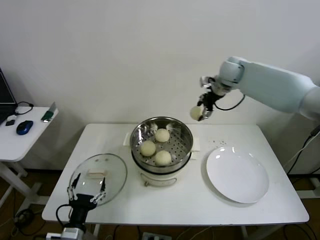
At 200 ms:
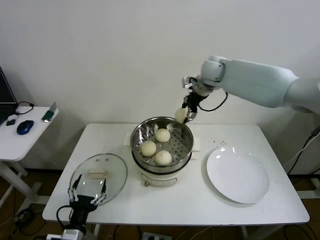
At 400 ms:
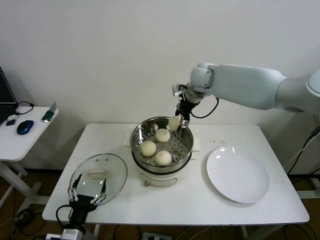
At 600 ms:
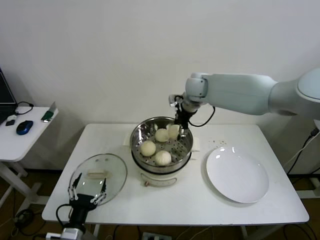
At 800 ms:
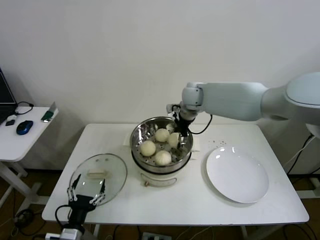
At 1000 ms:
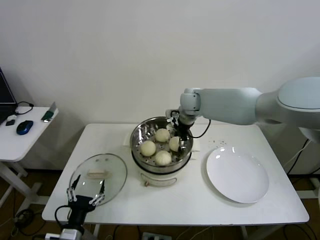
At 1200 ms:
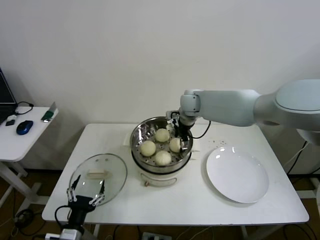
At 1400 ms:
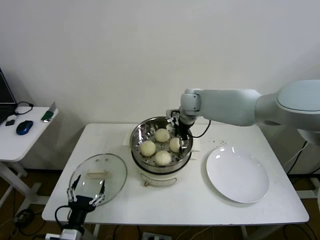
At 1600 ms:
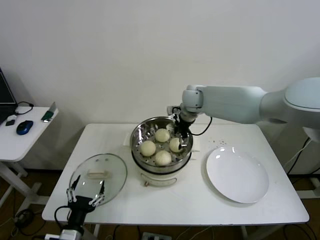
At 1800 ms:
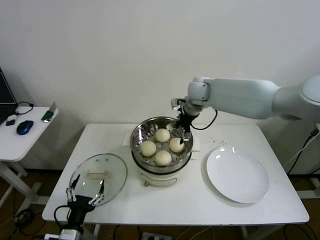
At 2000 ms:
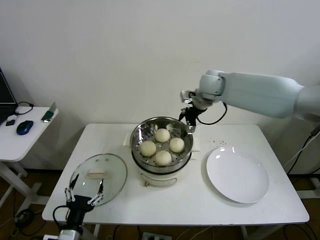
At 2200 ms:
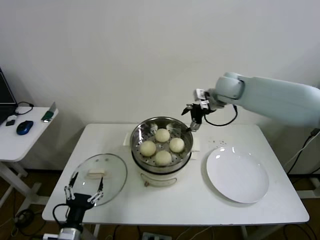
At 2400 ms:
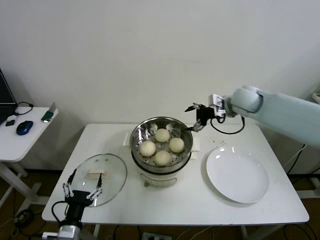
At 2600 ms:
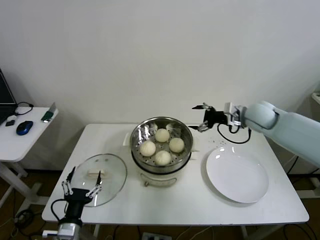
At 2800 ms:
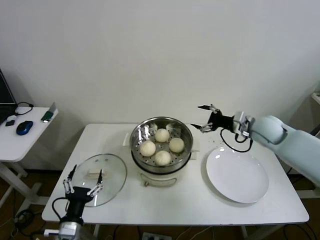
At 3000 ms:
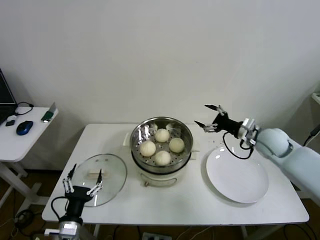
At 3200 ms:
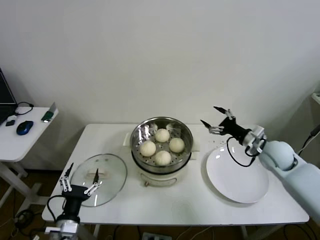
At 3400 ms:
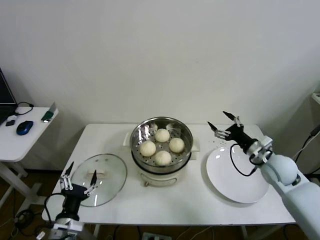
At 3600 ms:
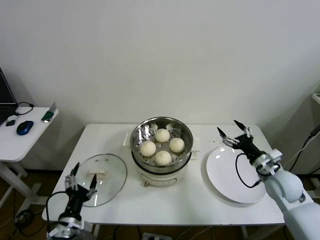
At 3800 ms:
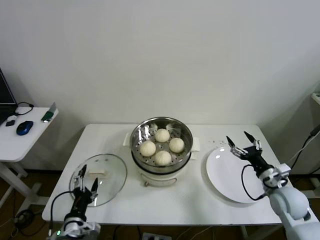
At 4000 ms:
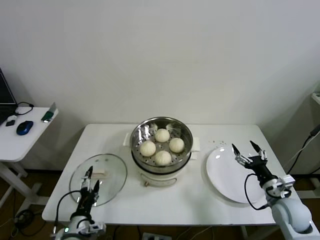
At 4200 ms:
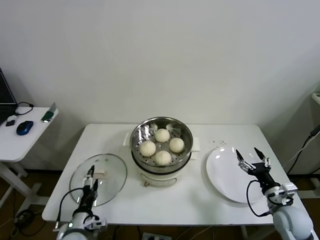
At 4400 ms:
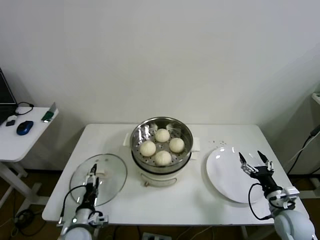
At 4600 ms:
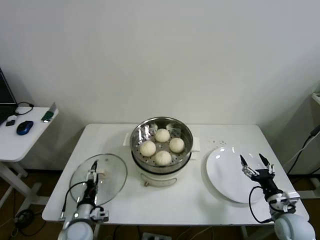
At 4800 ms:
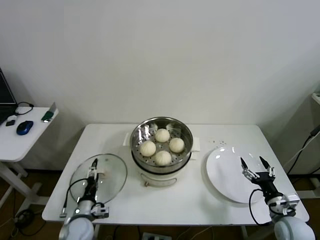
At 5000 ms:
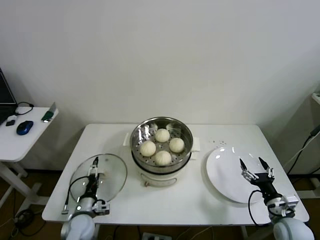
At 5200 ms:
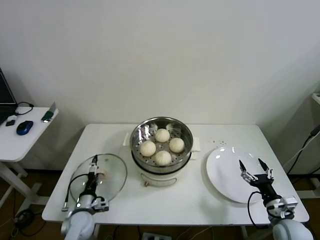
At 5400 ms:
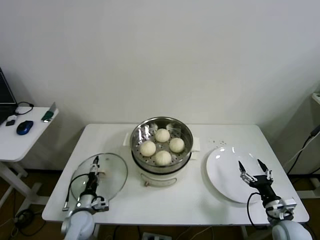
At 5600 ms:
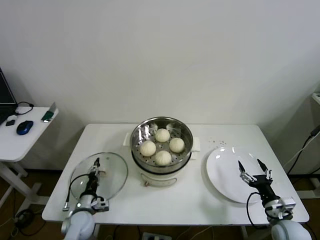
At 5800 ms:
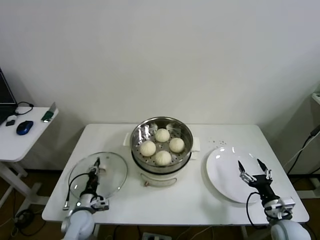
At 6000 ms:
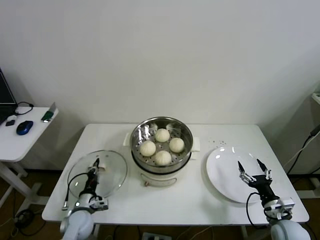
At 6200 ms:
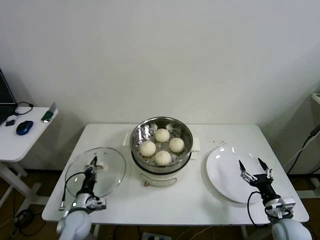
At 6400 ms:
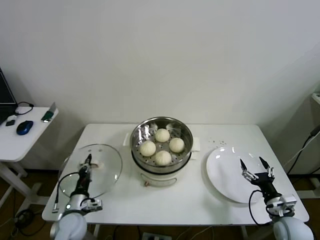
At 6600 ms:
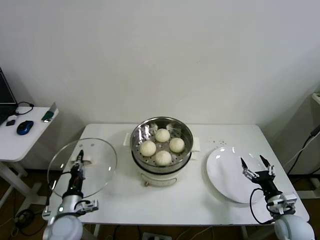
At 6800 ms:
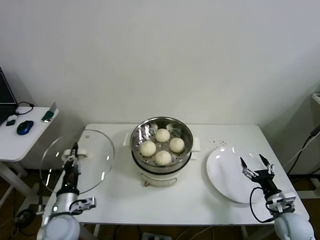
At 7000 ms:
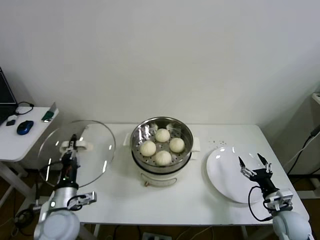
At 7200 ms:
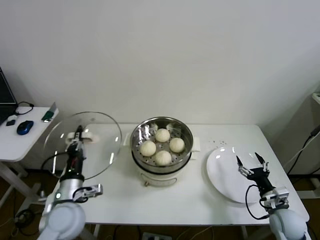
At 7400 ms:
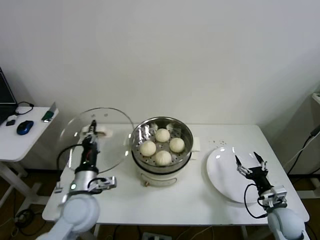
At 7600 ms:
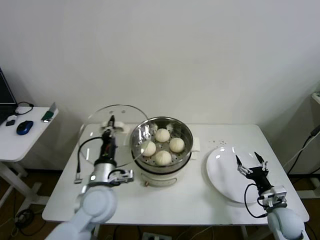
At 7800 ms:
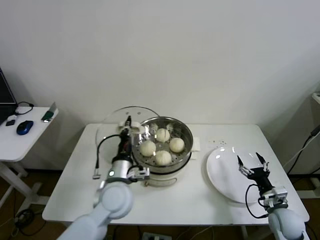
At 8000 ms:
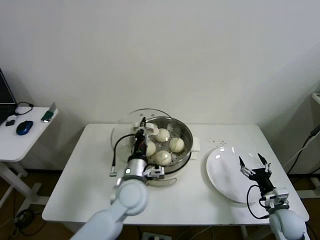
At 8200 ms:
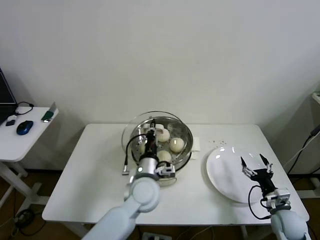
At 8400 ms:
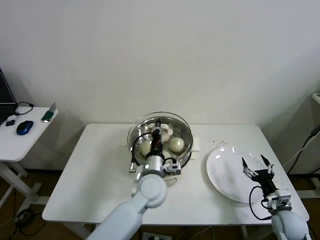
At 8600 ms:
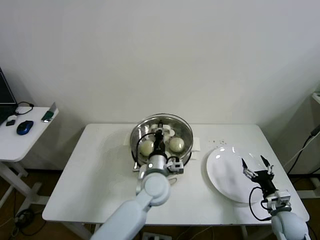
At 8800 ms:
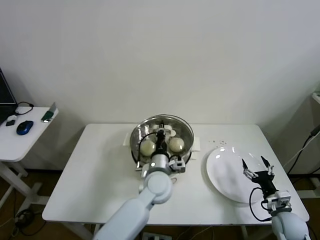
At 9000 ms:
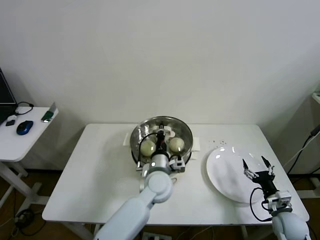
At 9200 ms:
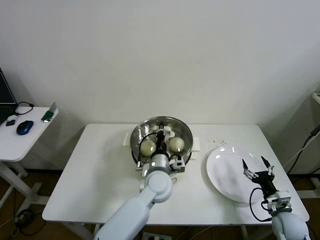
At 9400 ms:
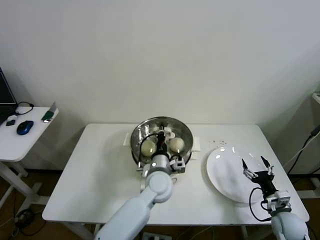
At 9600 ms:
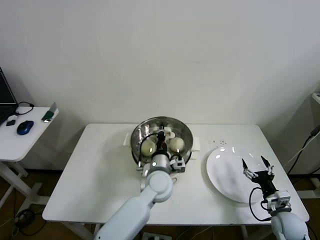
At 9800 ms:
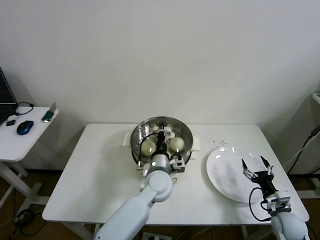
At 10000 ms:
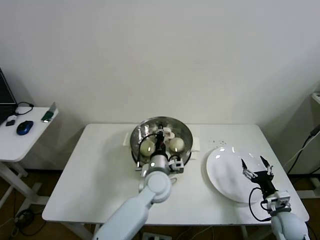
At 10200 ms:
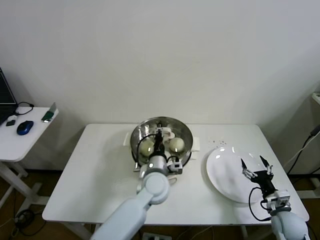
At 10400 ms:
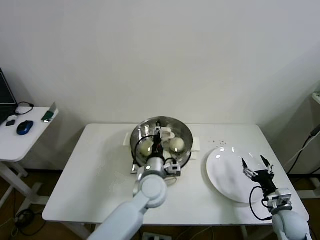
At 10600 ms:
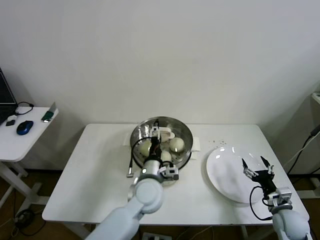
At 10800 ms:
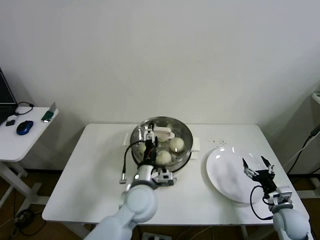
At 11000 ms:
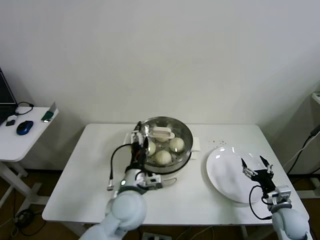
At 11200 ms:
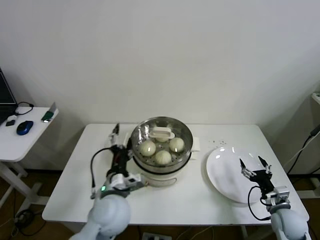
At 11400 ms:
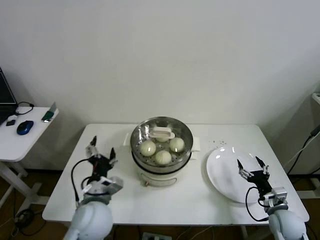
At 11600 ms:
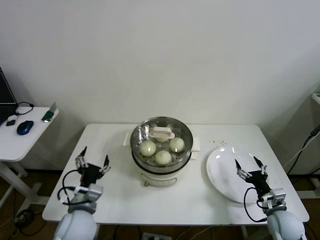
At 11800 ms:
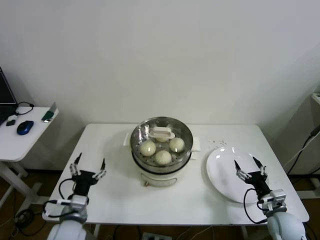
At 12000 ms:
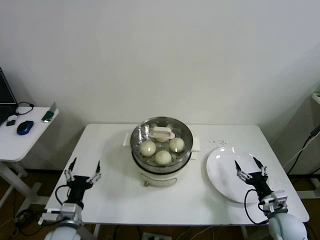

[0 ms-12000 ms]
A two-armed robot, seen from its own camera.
Step, 0 ms to 1400 ms: Place the baozi on the steamer with right gripper.
Step, 1800 ms to 5800 ms: Grasp the pot lid with left gripper.
Step, 6000 ms to 10600 ms: Place the pot lid on the steamer with left gripper.
0 ms to 1600 ms: The right gripper moves to the left and downward, approximately 15 cm, and opens its fingers.
1600 ms to 3000 ms: The right gripper moves to the right and backward, about 30 cm.
3000 ms to 4400 ms: The left gripper shifts about 10 cm downward and forward, while the right gripper shifts some 25 cm backward and downward.
4400 ms to 6000 ms: The left gripper is displaced forward by roughly 5 cm, and closes up.
6000 ms to 7600 ms: The left gripper goes approximately 25 cm upward and to the right.
7600 ms to 9000 ms: The left gripper heads to the right and forward, covering roughly 20 cm.
9000 ms to 10400 ms: The left gripper opens its fingers.
10400 ms to 12000 ms: The left gripper heads to the left and backward, covering about 30 cm, and opens.
